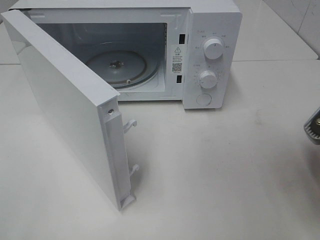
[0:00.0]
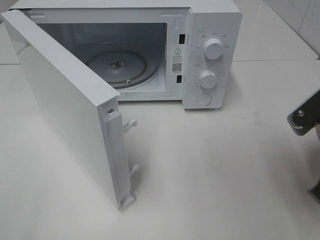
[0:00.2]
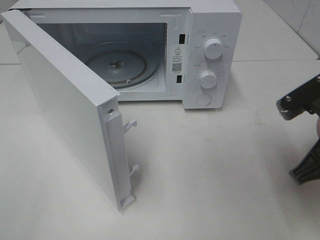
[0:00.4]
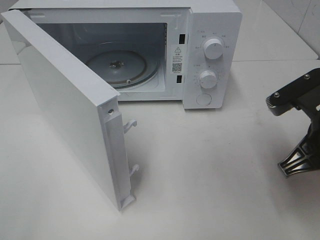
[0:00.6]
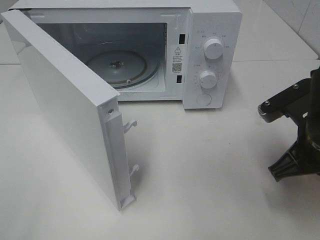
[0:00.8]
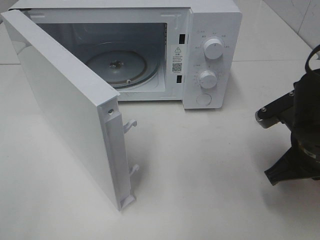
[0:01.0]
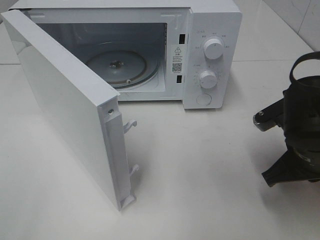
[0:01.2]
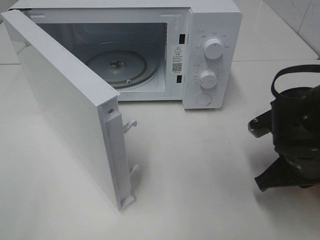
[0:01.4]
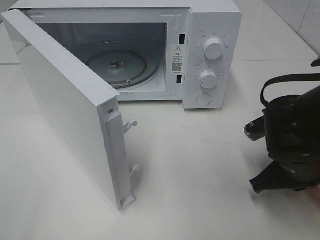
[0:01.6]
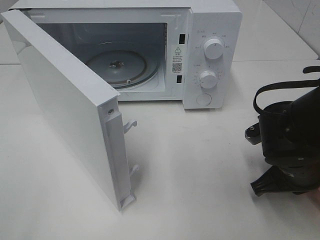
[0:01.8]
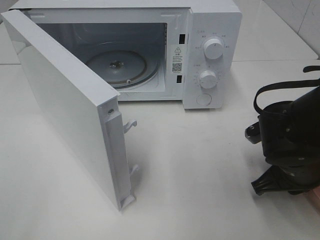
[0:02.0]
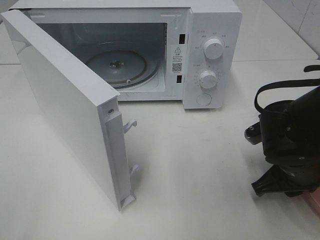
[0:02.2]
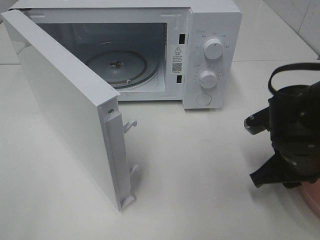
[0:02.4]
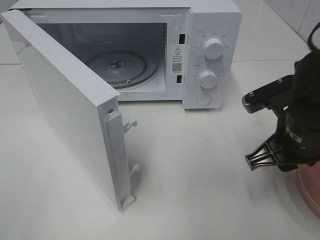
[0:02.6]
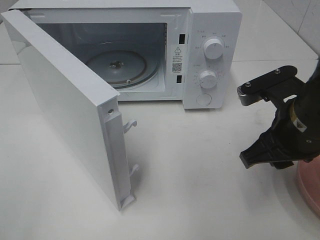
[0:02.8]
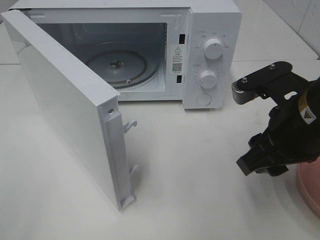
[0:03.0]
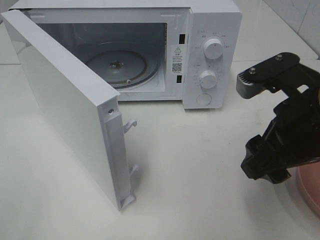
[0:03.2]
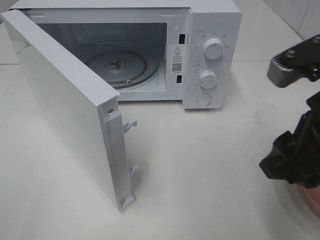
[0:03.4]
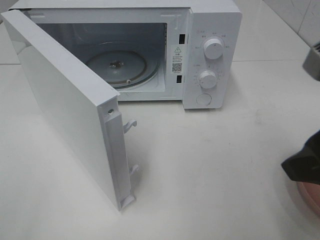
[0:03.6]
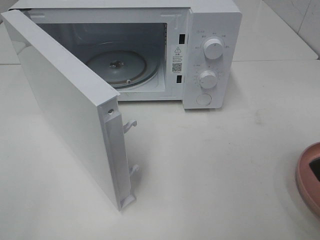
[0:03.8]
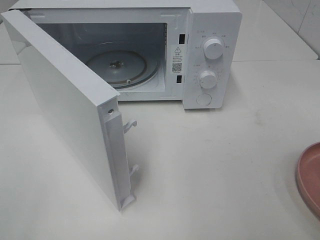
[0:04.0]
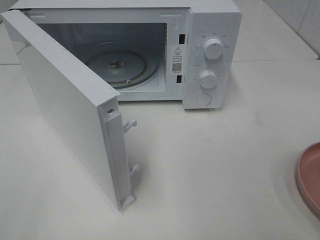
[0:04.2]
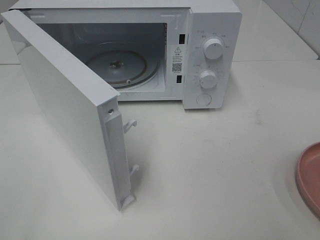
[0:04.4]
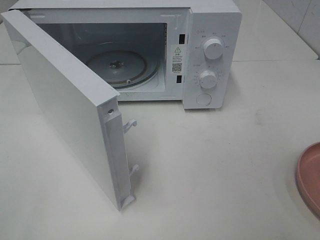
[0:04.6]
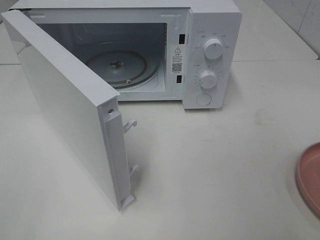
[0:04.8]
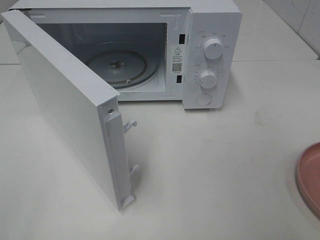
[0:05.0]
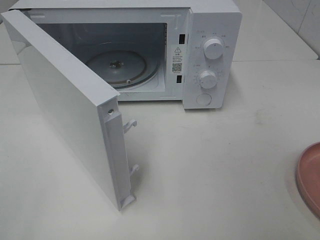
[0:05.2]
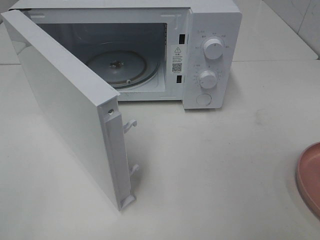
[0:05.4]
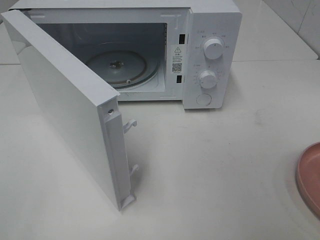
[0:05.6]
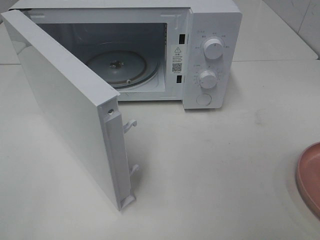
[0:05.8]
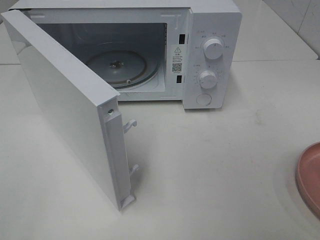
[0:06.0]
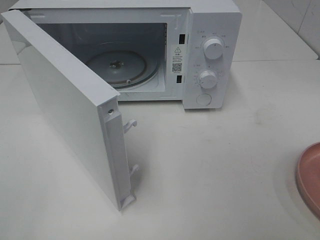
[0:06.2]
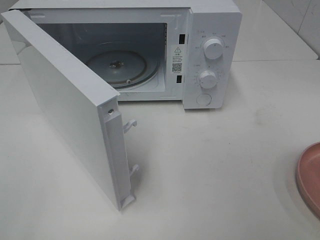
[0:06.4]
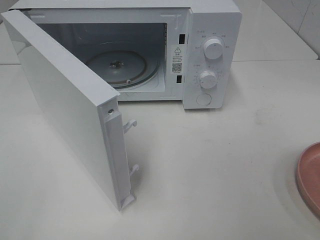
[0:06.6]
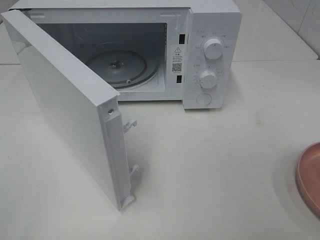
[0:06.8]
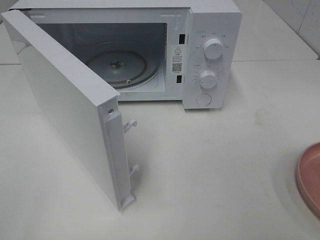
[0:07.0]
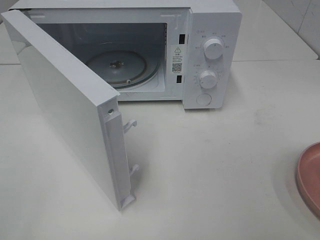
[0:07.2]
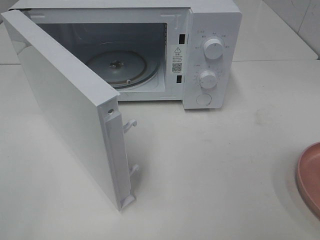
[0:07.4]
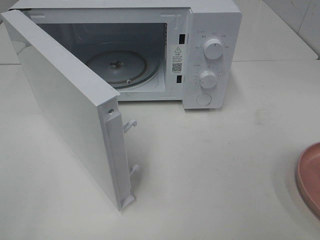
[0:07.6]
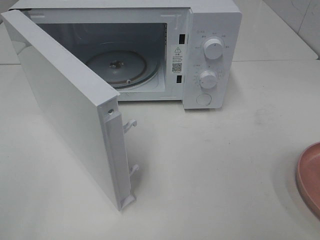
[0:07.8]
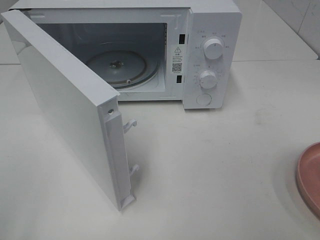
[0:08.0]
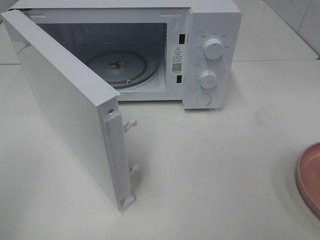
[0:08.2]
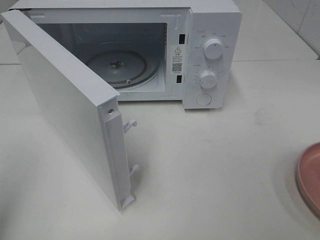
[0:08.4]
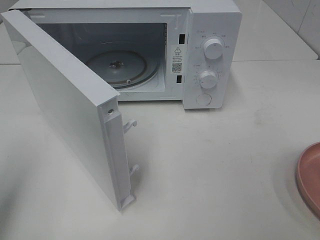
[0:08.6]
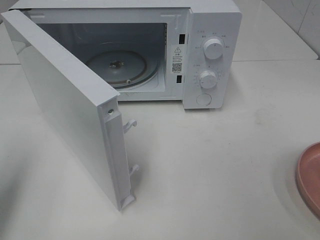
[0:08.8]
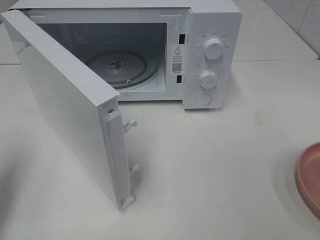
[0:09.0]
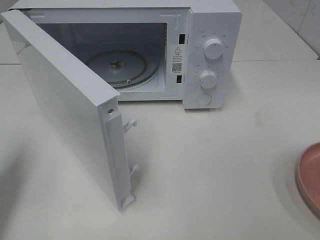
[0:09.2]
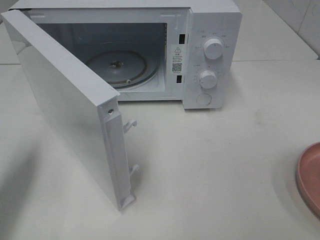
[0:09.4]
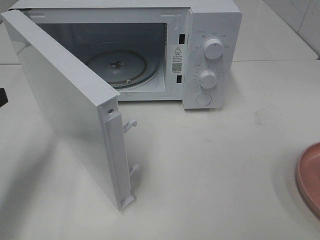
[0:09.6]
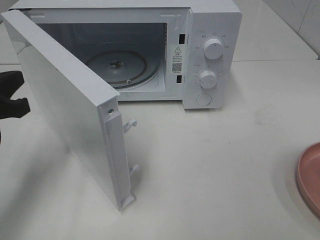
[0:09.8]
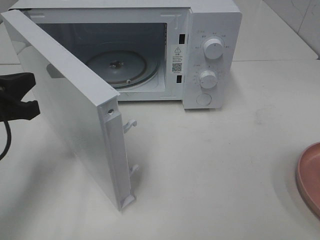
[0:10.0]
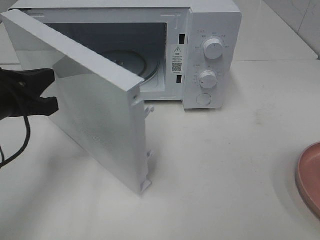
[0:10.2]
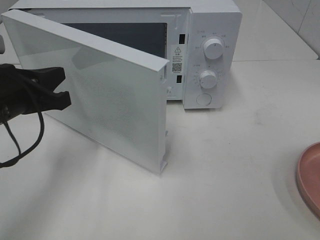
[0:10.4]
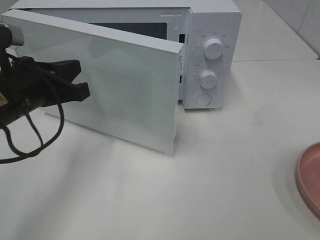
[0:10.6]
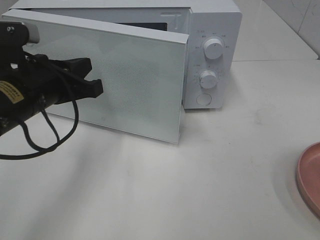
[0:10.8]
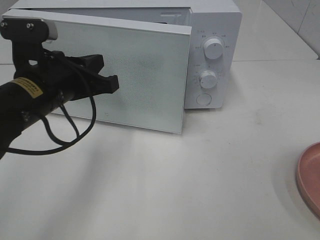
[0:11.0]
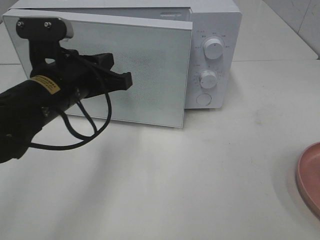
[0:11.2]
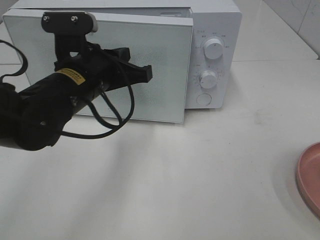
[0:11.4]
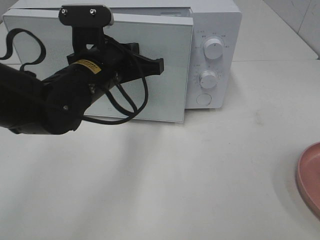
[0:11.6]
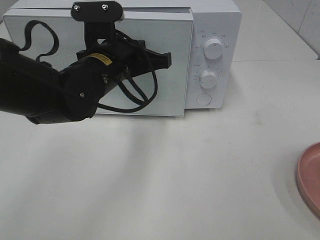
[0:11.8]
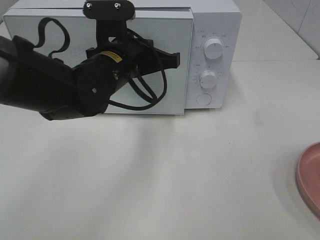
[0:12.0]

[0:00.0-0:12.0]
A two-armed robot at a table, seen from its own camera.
Task of the whole recording: Heat the burger.
Step, 0.0 to 2.4 s: Right hand: place the plate on the table.
0.0 to 1.6 s: The right gripper goes some 15 cm downward and forward.
1.6 to 3.0 s: The right gripper goes about 10 cm upward, and opens up.
3.0 to 4.4 s: The right gripper is displaced backward, to the right and upward by roughly 20 cm.
6.0 to 7.6 s: Both grippers stay about where they are.
7.6 to 9.0 s: The left gripper moves forward, roughly 15 cm, and closes up.
9.0 to 10.4 s: The left gripper is displaced to the right, forward and downward by roughly 15 cm.
10.4 to 12.0 s: The left gripper moves to the right and forward, about 15 cm.

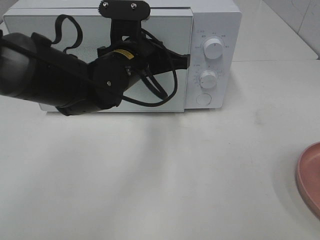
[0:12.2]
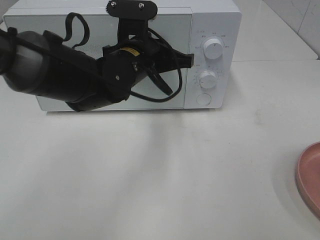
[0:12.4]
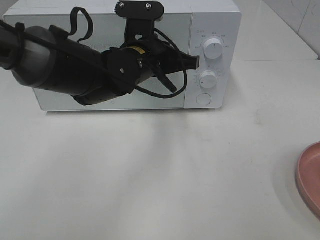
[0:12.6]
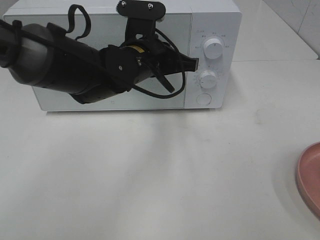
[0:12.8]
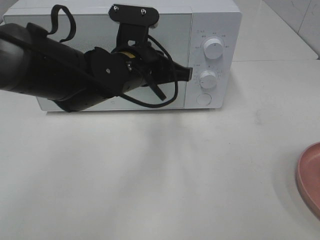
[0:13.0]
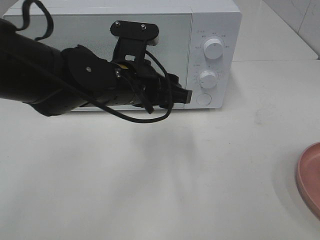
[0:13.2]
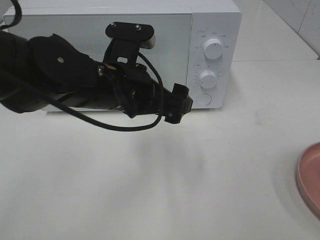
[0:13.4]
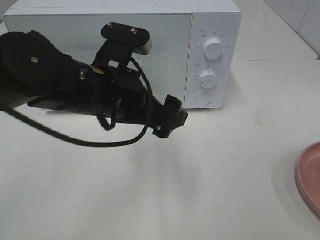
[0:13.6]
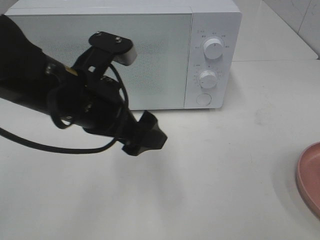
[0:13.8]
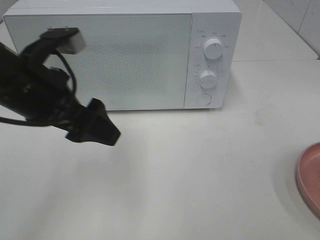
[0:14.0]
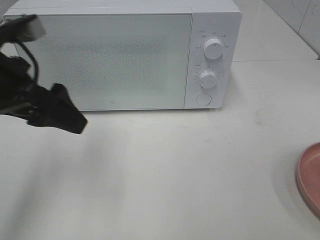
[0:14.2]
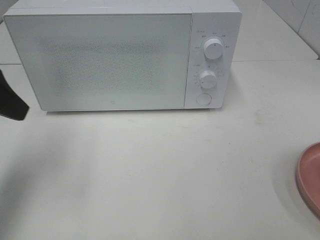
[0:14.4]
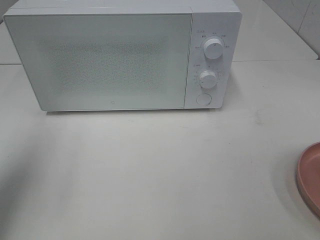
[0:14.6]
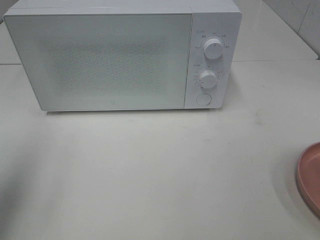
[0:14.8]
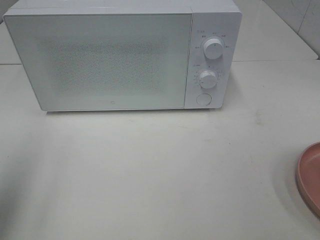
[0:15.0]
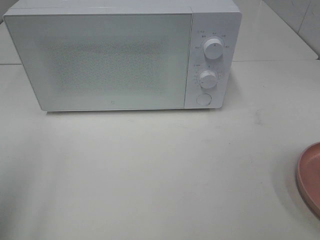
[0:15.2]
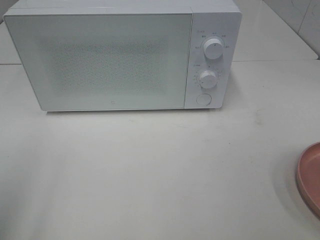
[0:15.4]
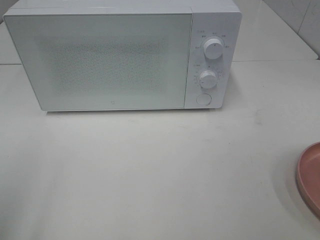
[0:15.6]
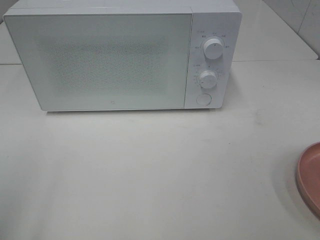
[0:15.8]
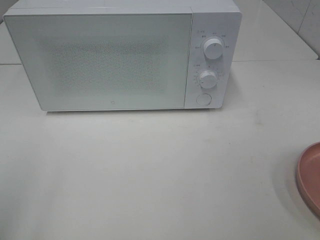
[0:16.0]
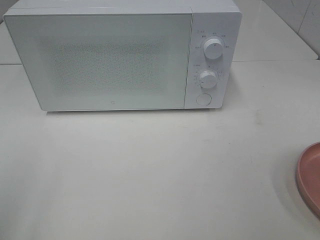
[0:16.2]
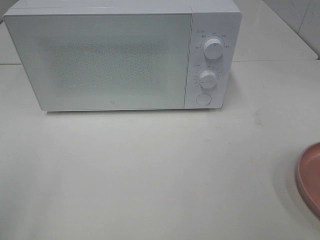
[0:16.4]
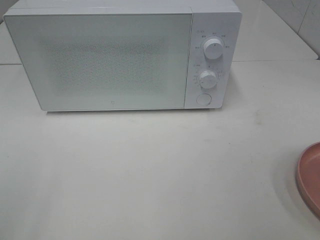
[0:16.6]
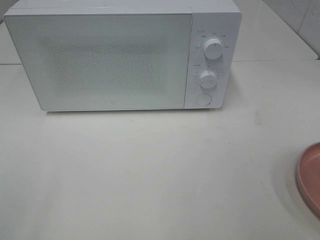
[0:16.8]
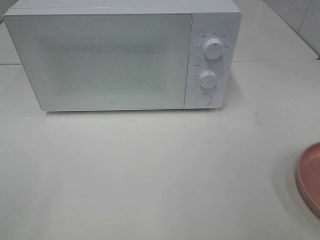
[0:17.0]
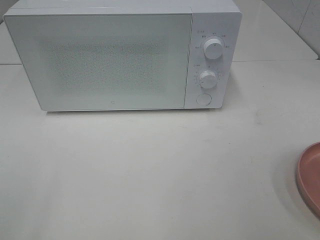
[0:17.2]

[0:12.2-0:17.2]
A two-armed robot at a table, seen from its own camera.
Task of the whole recording: Heat the burger.
12.2 to 13.8 s: The left gripper travels backward and to the left by roughly 10 cm, and opens.
13.8 to 15.6 s: The left gripper moves to the left and backward, about 25 cm.

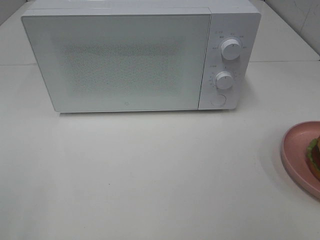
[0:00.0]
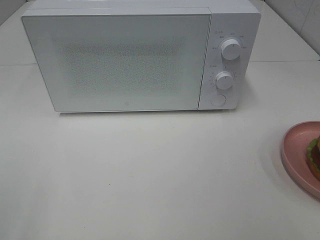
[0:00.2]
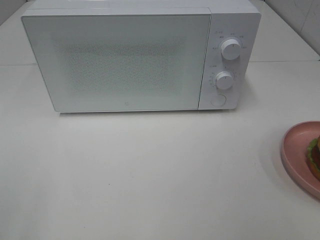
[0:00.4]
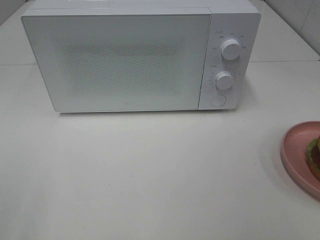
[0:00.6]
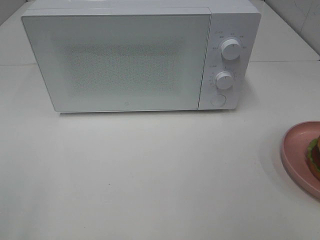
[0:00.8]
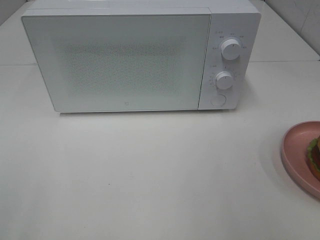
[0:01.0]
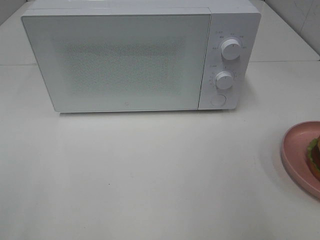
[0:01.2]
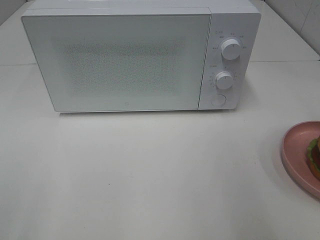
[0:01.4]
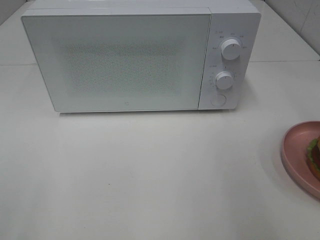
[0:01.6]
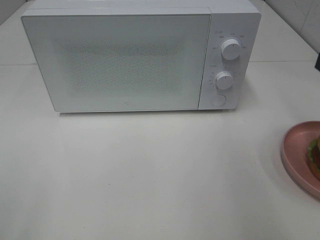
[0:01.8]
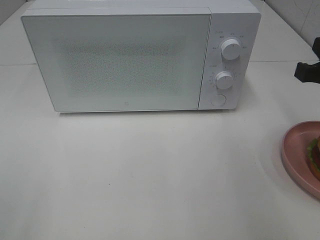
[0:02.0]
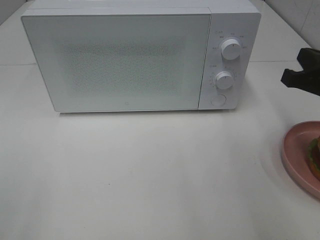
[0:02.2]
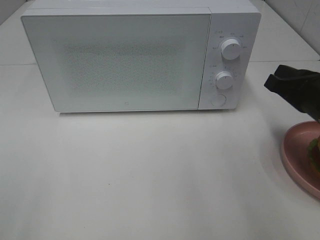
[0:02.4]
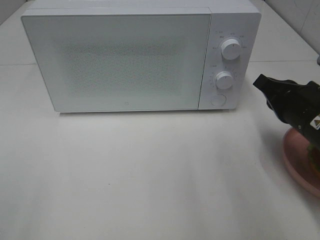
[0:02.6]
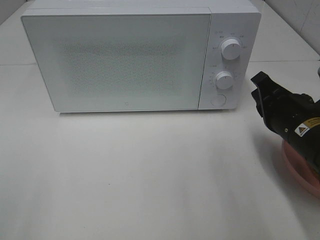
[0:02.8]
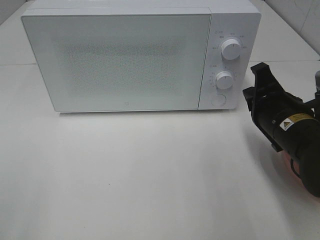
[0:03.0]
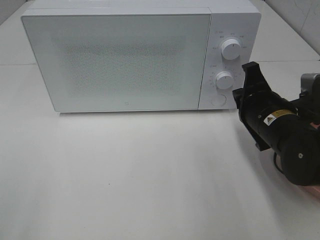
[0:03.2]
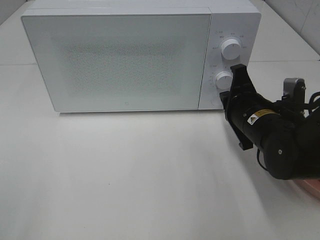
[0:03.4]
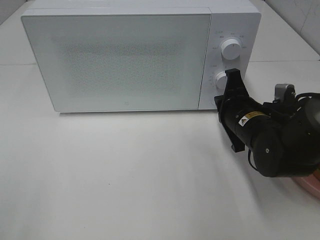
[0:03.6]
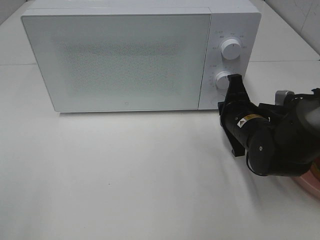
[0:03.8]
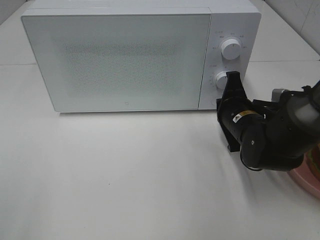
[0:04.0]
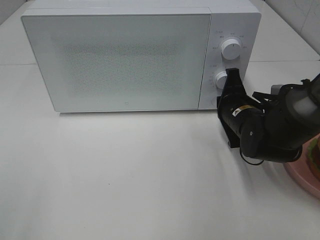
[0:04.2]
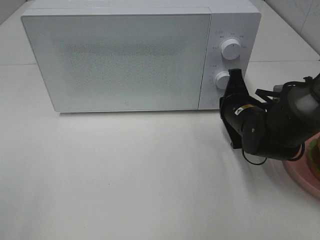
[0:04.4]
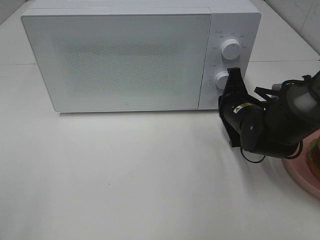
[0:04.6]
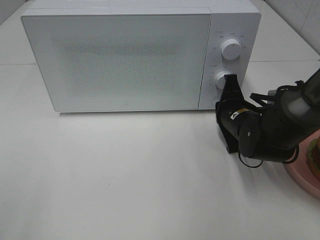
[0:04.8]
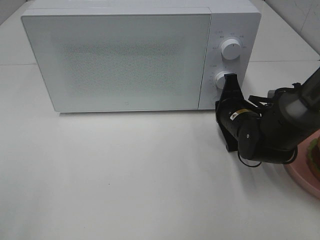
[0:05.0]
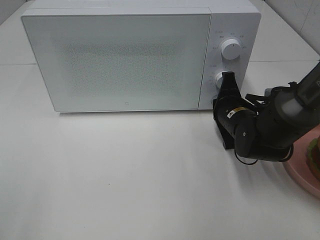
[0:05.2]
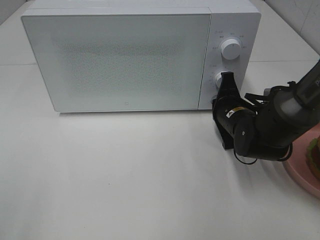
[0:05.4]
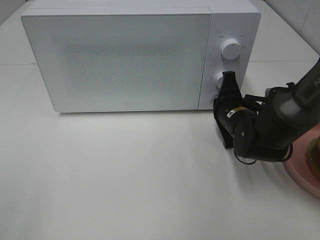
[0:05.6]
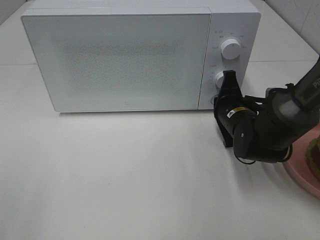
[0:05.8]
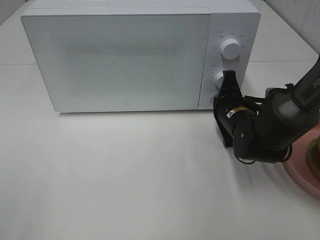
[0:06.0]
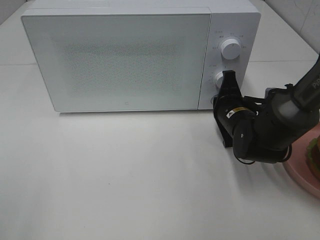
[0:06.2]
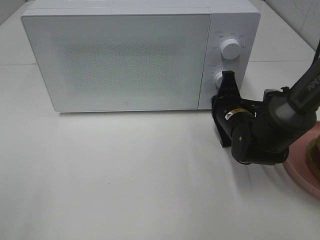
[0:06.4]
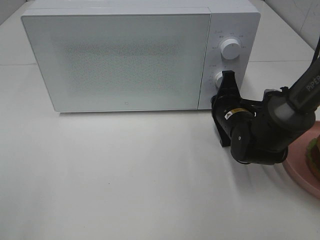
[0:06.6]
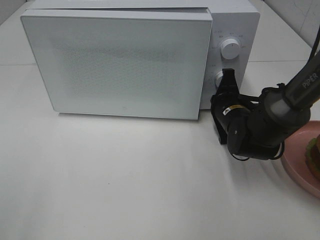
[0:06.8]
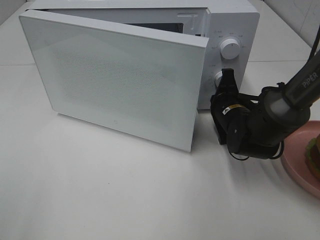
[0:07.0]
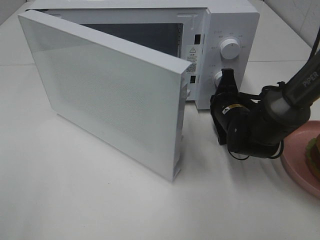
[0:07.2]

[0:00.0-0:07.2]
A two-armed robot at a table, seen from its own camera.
Task of the whole recording: Heat the burger.
1.4 to 2.8 s: The right gripper goes some 20 cm downward, forward and to the left.
2.8 to 4.4 s: The right gripper moves forward and downward, approximately 10 cm.
4.4 to 5.8 s: The grippers make only small movements.
